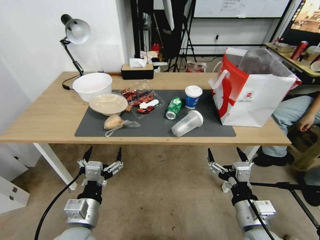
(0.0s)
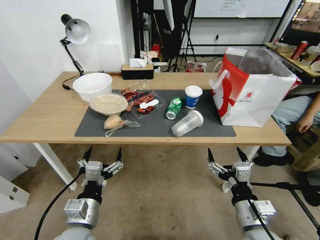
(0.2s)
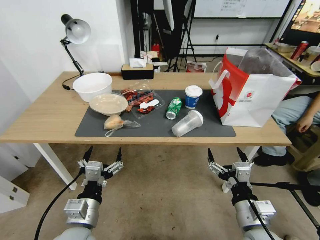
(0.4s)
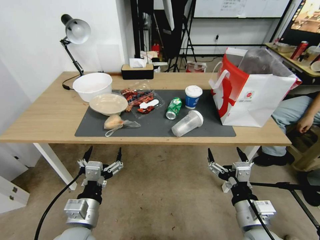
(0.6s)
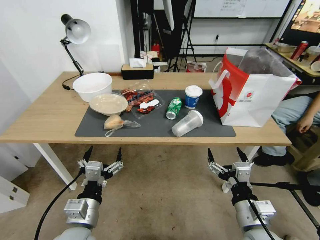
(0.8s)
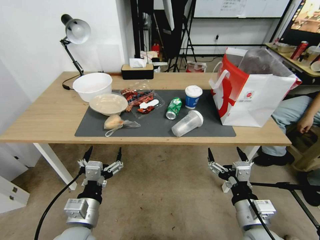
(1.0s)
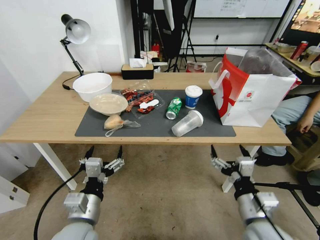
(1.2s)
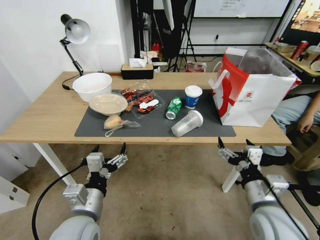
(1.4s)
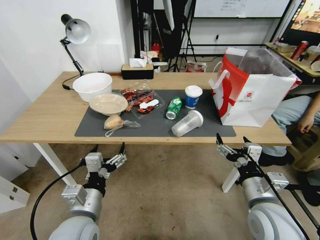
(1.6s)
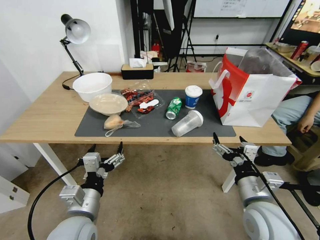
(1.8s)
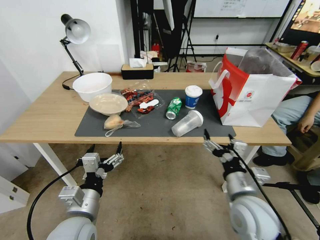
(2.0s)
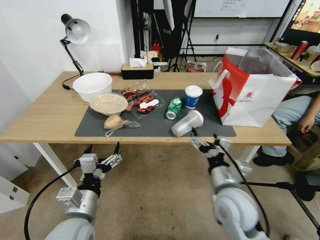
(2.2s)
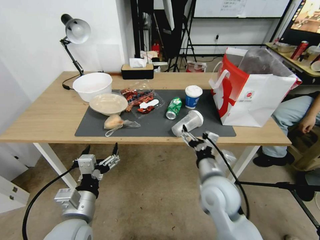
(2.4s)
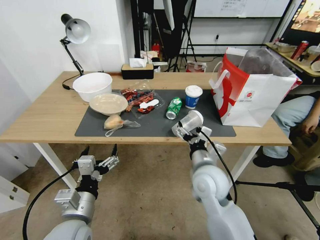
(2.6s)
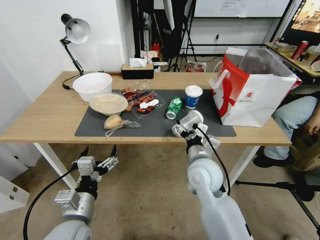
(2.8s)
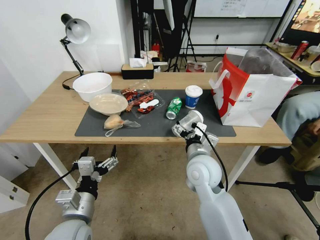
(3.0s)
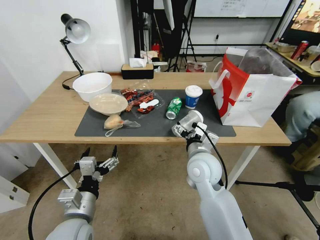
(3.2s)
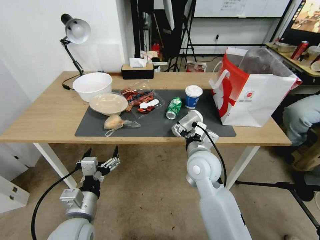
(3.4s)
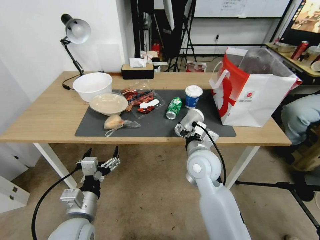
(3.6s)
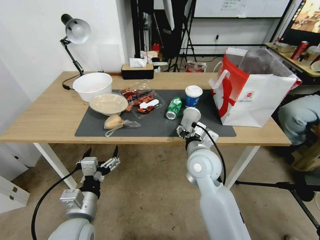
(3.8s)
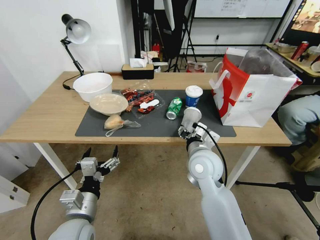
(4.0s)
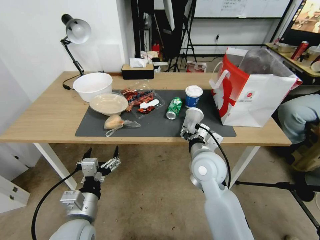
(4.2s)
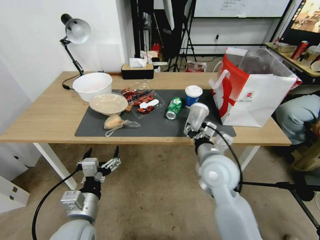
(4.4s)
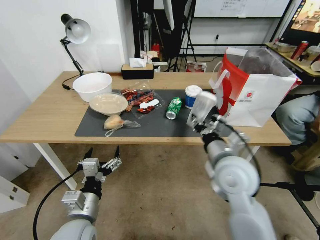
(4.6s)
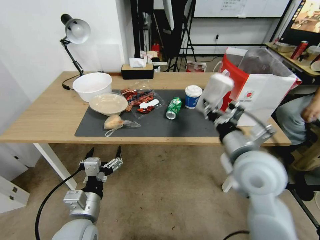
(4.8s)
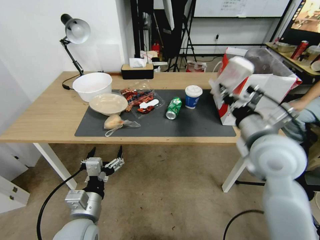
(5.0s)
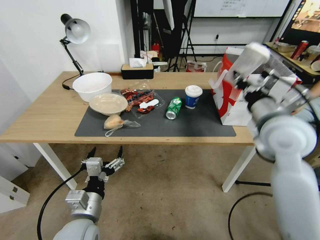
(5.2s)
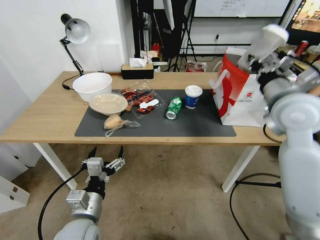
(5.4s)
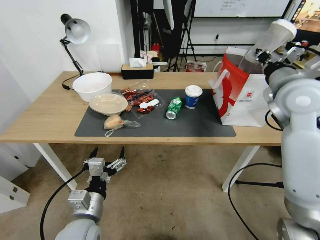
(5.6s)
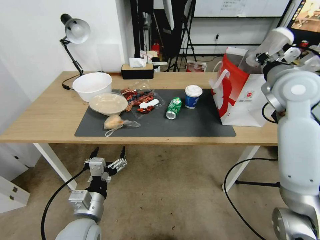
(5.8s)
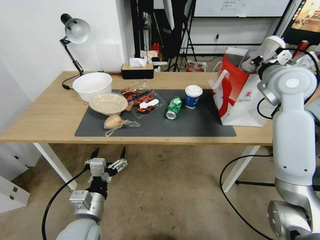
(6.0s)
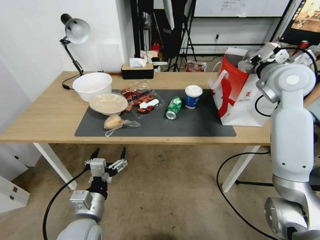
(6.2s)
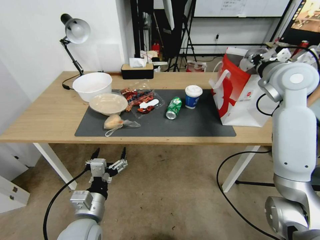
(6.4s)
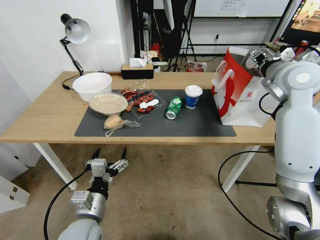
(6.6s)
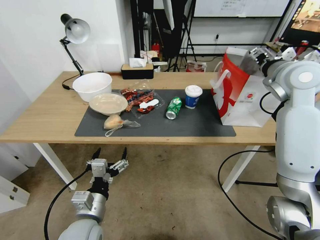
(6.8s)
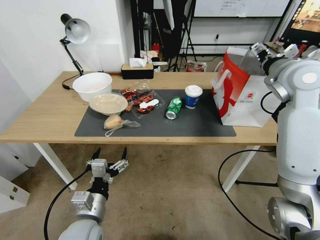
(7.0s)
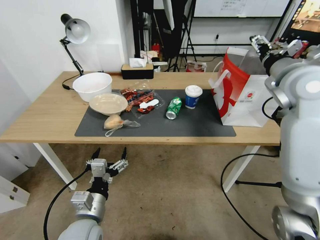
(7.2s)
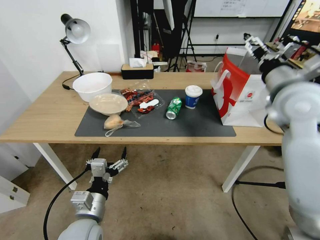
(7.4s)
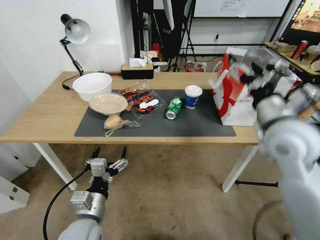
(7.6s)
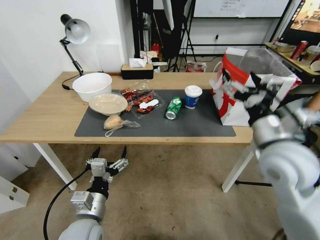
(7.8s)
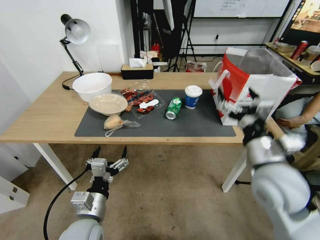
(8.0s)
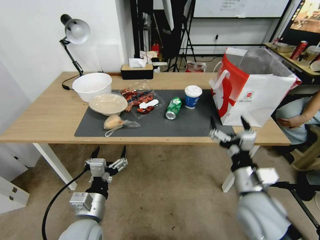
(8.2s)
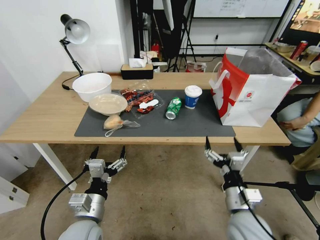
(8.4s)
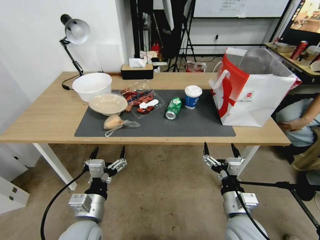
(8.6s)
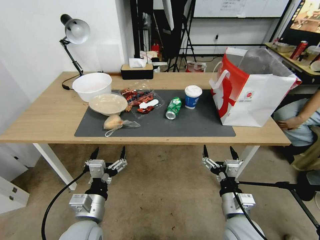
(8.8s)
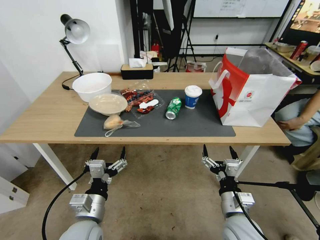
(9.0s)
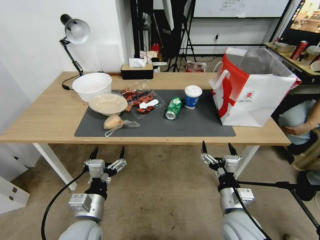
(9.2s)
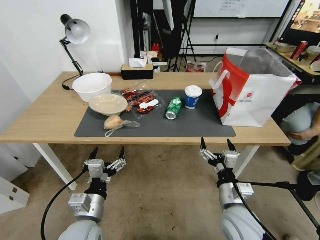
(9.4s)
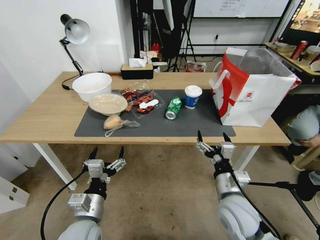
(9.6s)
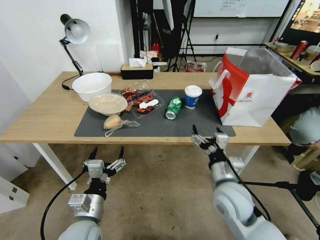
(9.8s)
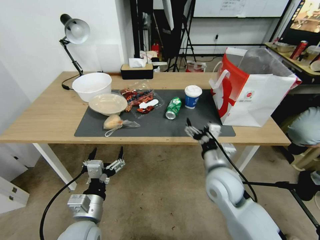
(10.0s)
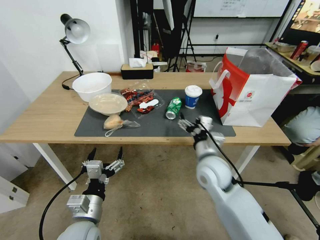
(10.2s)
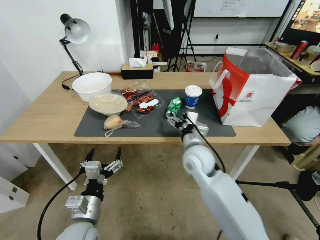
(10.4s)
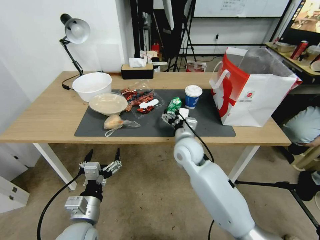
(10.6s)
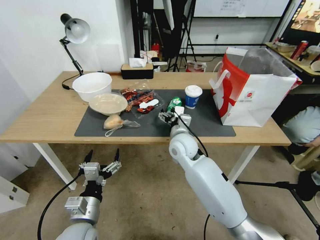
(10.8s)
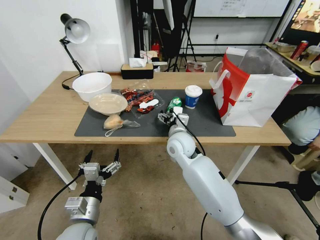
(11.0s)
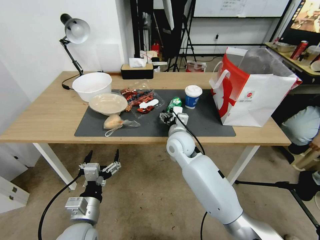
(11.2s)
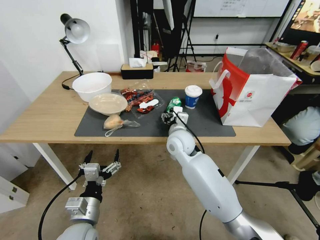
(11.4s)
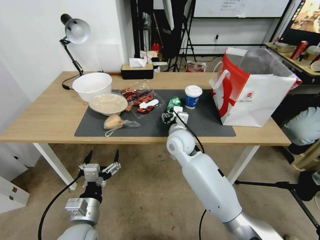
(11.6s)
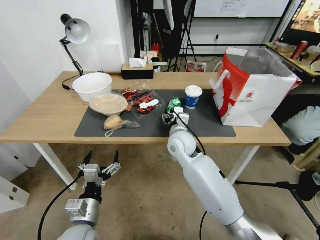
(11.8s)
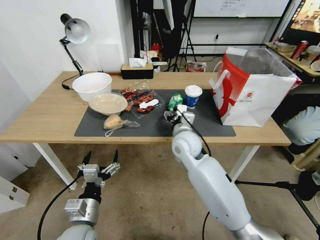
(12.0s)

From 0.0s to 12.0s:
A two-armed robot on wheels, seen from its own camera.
From 1.6s to 3.0s: The right gripper travels to the left and forward by some 20 cm.
From 3.0s to 4.4s: The right gripper closes.
From 4.4s to 6.0s: The right gripper heads upward, to the right and forward, covering roughly 30 cm.
From 6.0s to 7.6s: The right gripper heads backward, covering approximately 15 cm, and opens.
From 7.6s to 9.0s: The right gripper shifts roughly 30 cm downward and backward.
From 9.0s to 10.4s: The right gripper travels forward, to the left and upward by some 20 cm.
From 10.4s to 12.0s: The right gripper moves some 5 cm, and closes up.

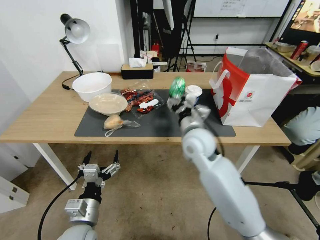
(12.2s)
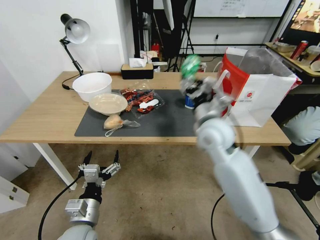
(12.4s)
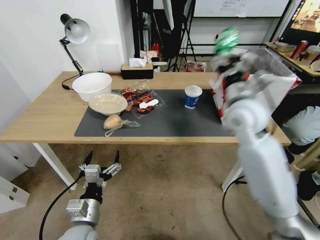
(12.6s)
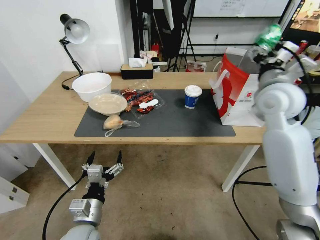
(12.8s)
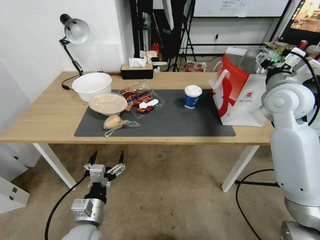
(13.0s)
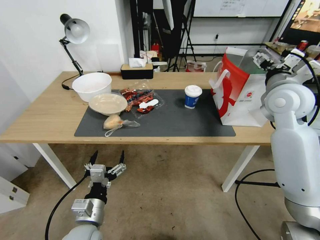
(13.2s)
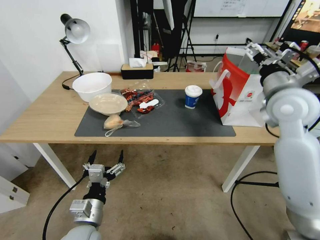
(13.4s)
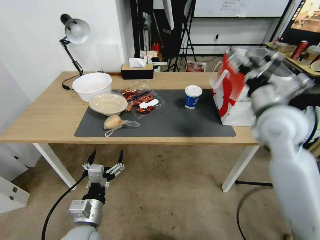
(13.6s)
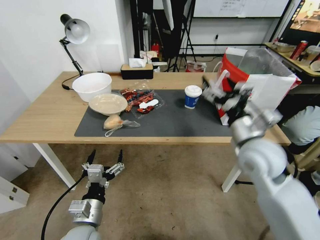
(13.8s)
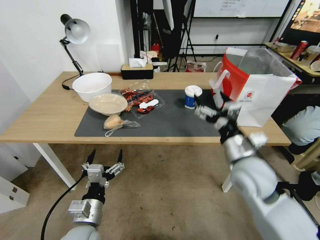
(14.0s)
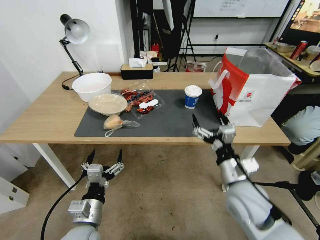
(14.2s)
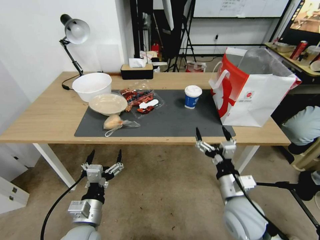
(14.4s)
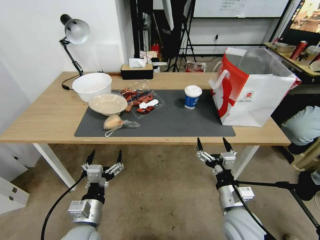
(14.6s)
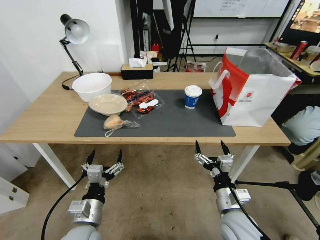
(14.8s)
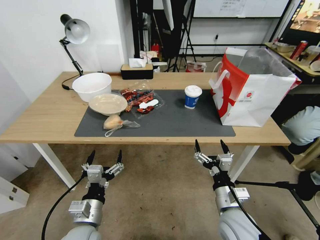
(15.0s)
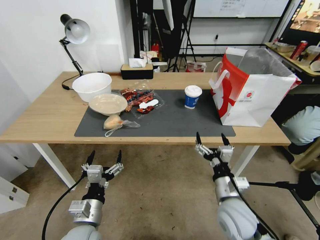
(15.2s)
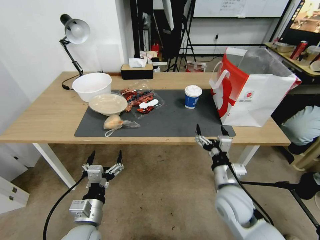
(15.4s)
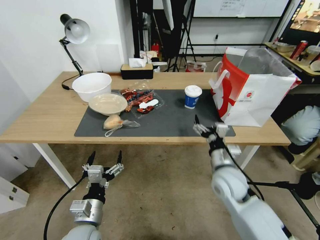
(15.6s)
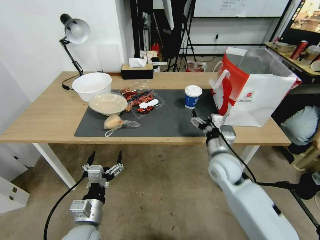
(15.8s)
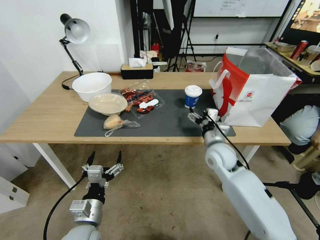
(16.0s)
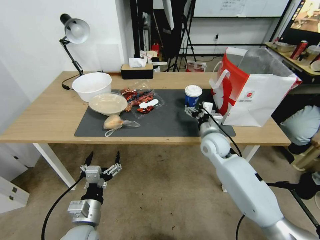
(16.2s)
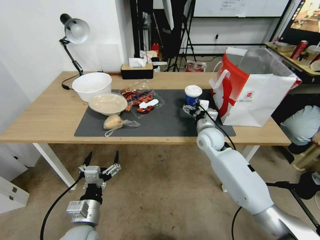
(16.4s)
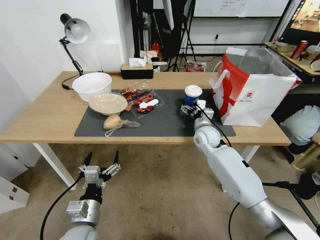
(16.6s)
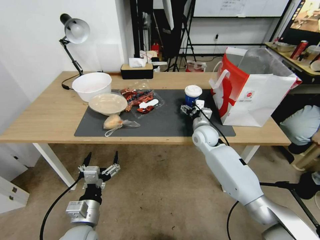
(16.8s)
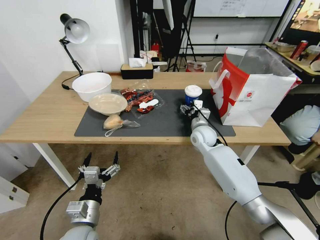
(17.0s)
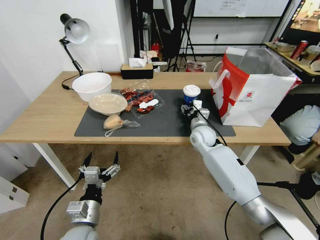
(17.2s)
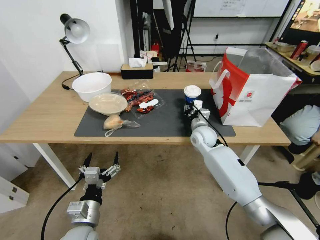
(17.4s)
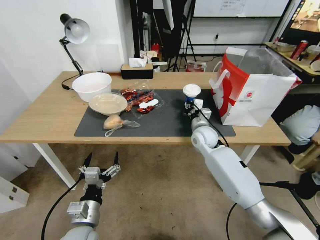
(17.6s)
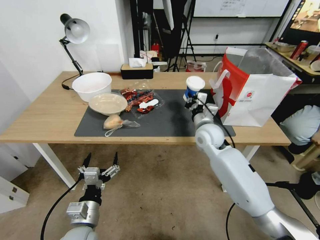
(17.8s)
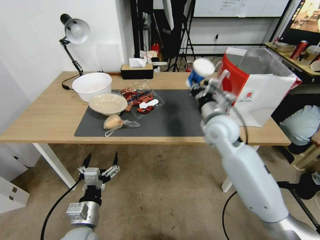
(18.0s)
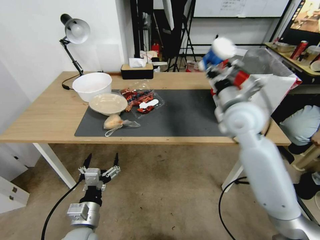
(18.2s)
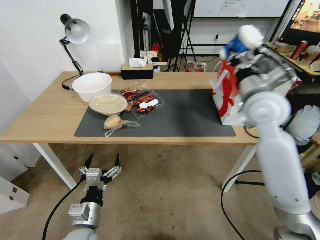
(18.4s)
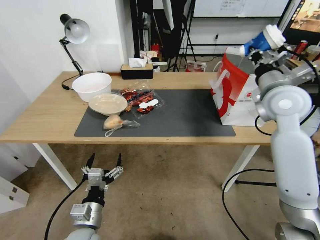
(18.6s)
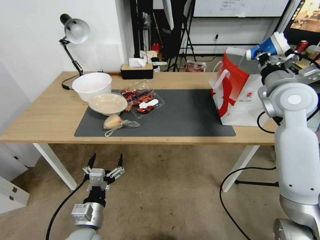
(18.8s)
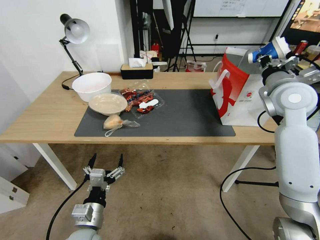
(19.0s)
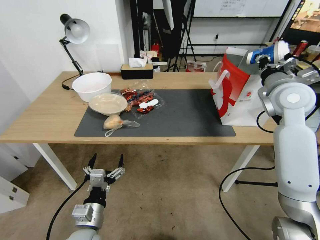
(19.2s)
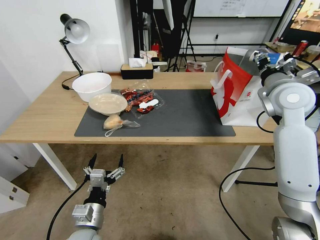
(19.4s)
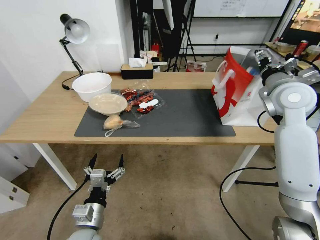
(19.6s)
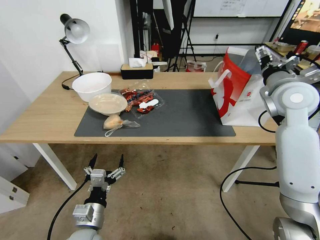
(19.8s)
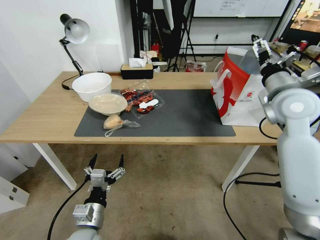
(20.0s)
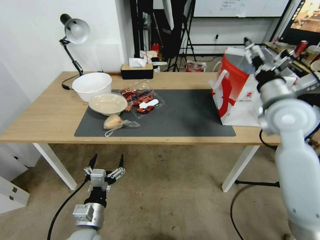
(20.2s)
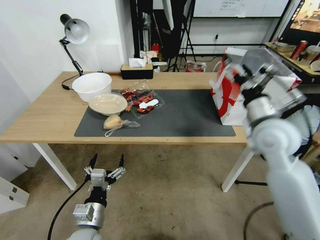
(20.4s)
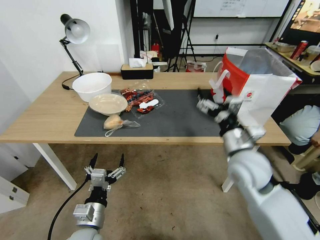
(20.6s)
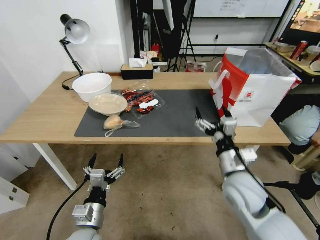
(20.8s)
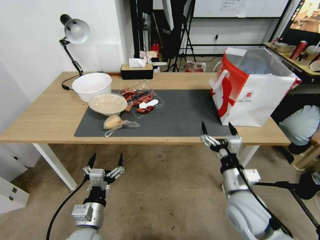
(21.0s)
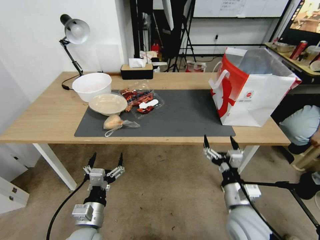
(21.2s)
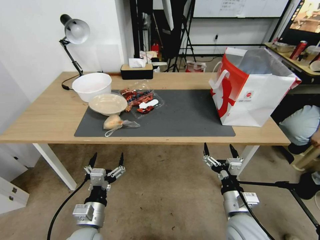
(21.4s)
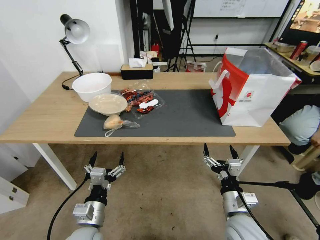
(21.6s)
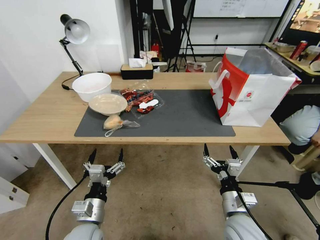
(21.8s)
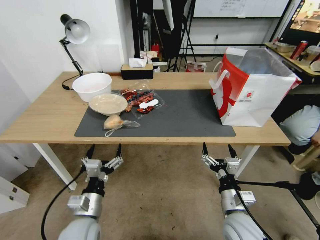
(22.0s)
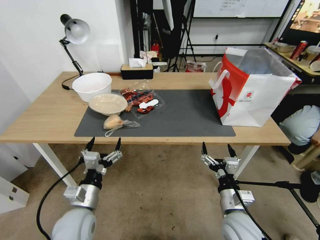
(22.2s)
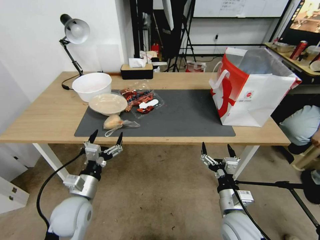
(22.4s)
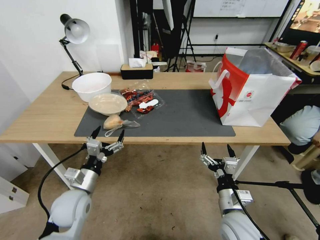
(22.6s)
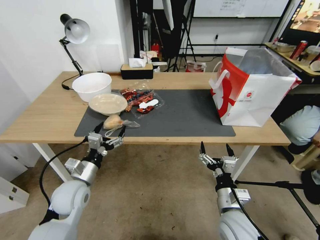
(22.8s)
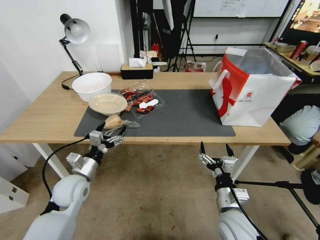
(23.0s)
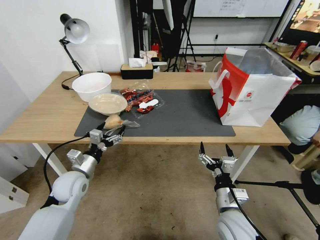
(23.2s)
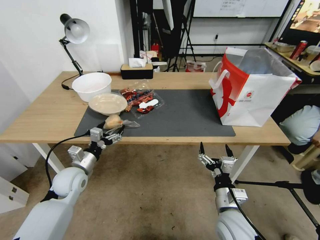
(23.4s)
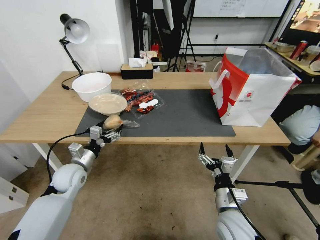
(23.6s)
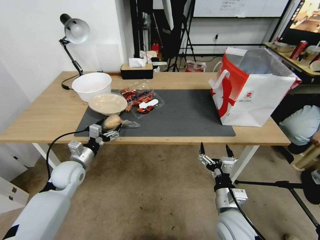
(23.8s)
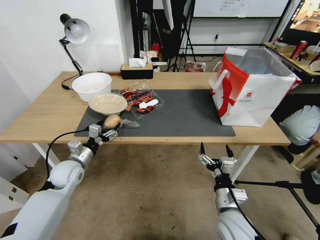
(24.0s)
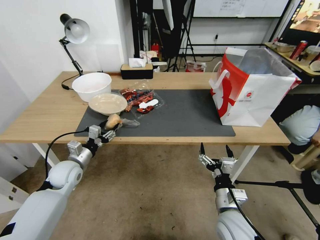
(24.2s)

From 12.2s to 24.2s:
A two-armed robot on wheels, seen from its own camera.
From 12.2s to 13.8s: The right gripper moves to the right, backward and upward, some 20 cm, and opens up.
From 13.8s to 15.2s: The right gripper travels downward and backward by some 20 cm.
From 15.2s to 16.6s: The right gripper moves forward, approximately 25 cm.
From 16.6s to 18.2s: The right gripper goes roughly 20 cm upward and backward, and closes up.
From 18.2s to 19.8s: The right gripper is displaced to the right by approximately 15 cm, and opens.
From 19.8s to 21.2s: The right gripper shifts approximately 35 cm downward, backward and to the left.
From 21.2s to 22.6s: The left gripper travels forward by some 10 cm.
From 22.6s to 24.2s: The left gripper goes about 15 cm forward and to the left, and closes.
